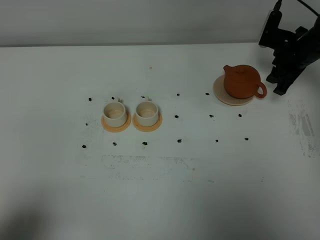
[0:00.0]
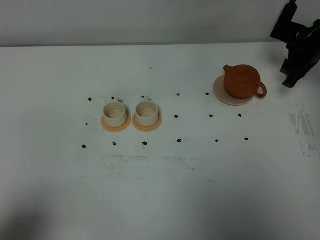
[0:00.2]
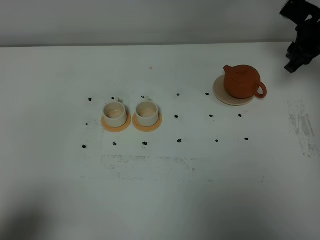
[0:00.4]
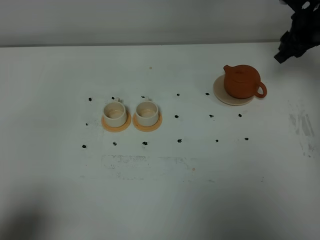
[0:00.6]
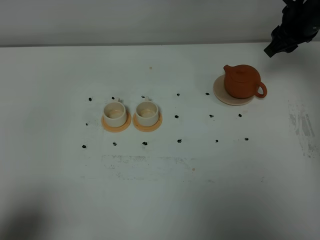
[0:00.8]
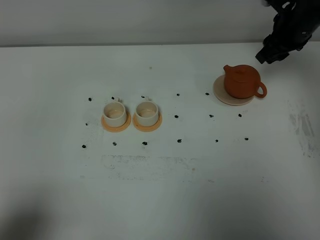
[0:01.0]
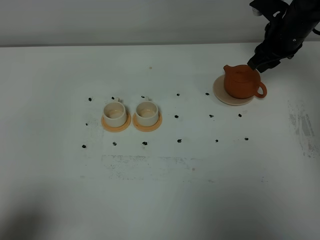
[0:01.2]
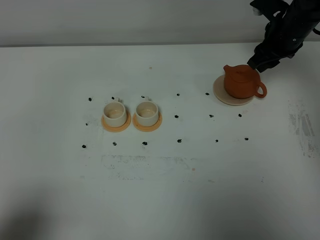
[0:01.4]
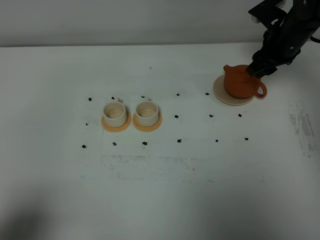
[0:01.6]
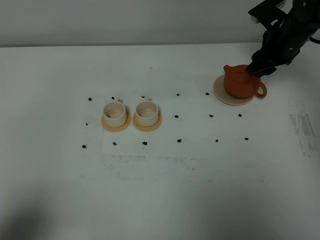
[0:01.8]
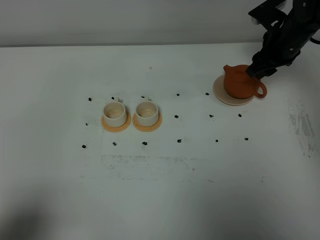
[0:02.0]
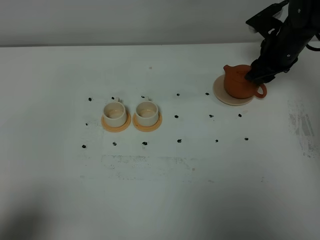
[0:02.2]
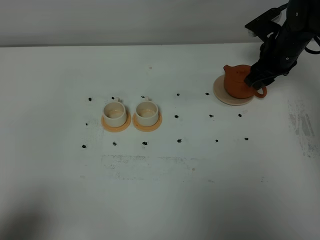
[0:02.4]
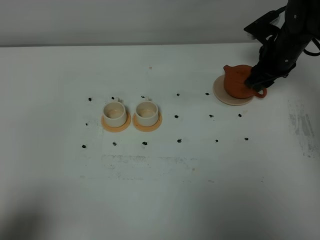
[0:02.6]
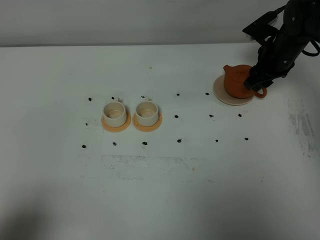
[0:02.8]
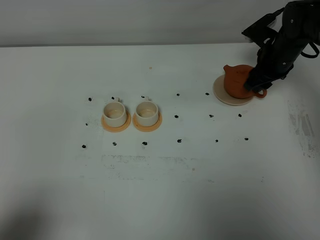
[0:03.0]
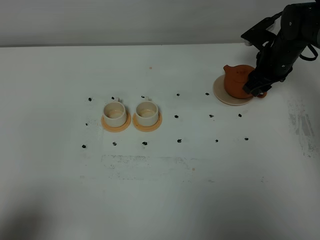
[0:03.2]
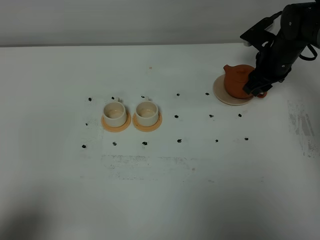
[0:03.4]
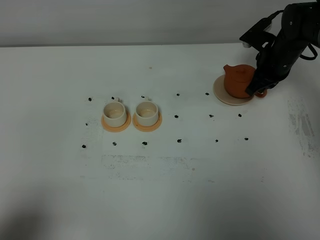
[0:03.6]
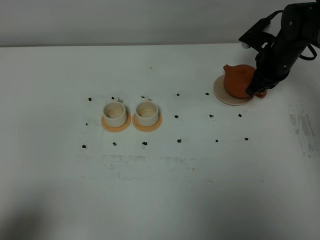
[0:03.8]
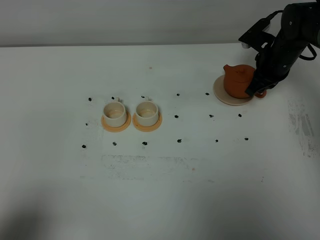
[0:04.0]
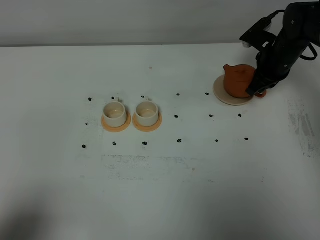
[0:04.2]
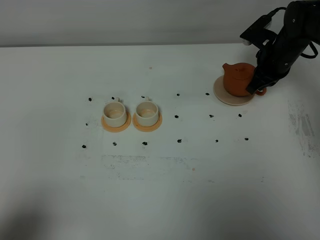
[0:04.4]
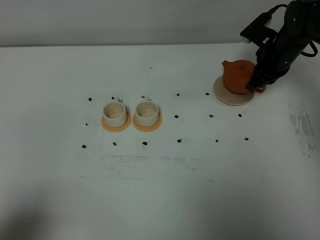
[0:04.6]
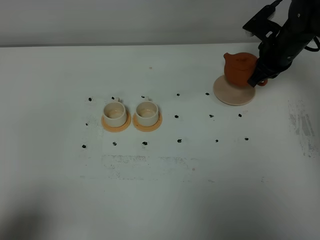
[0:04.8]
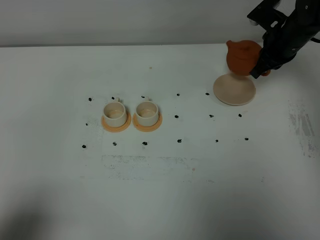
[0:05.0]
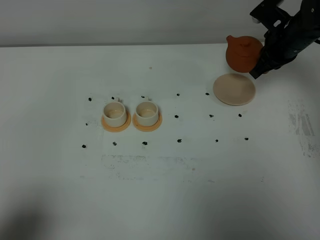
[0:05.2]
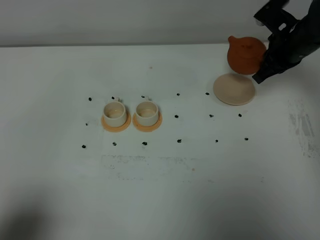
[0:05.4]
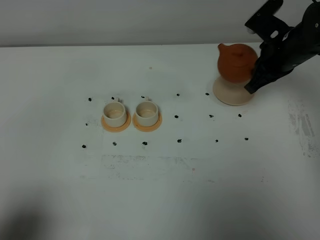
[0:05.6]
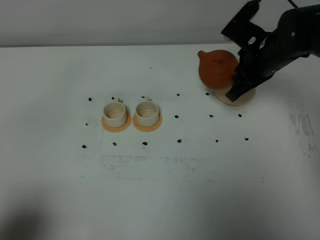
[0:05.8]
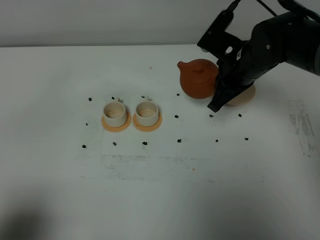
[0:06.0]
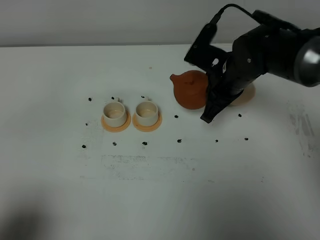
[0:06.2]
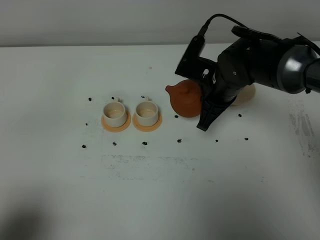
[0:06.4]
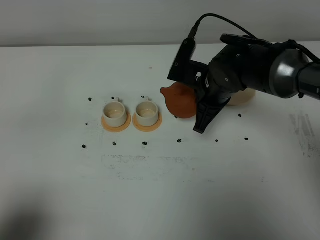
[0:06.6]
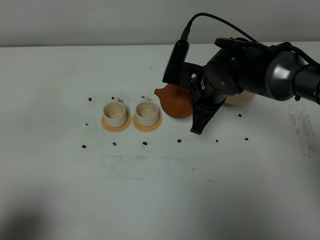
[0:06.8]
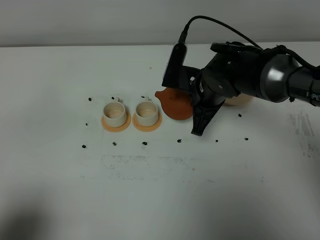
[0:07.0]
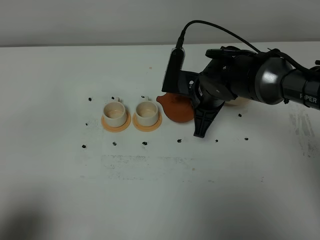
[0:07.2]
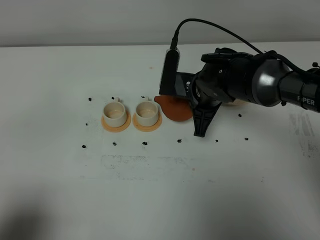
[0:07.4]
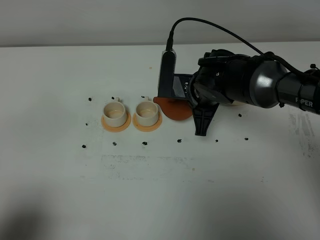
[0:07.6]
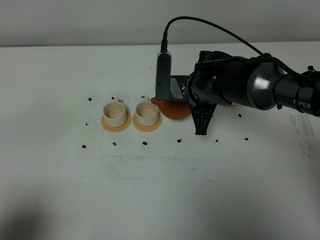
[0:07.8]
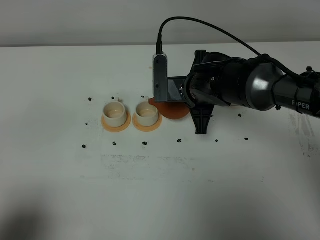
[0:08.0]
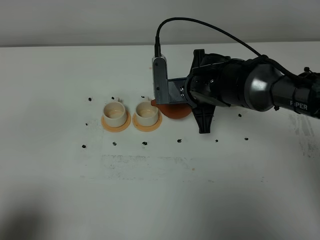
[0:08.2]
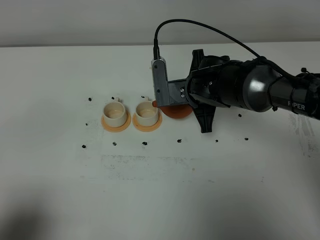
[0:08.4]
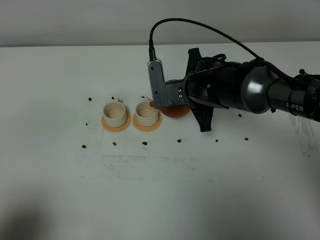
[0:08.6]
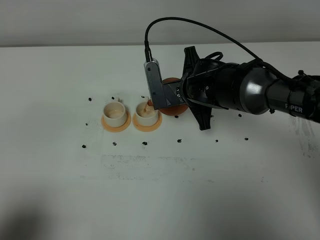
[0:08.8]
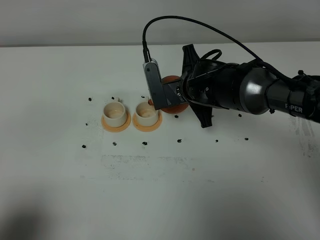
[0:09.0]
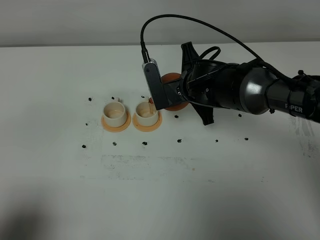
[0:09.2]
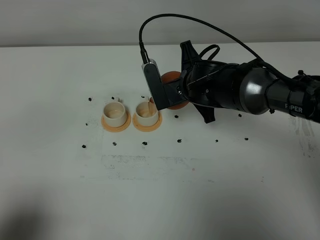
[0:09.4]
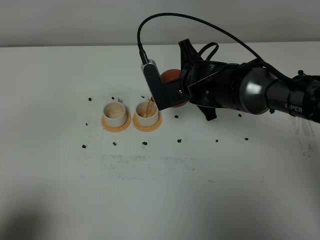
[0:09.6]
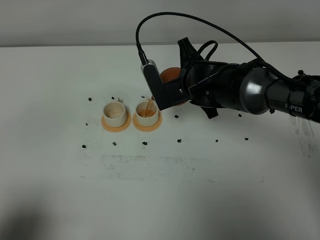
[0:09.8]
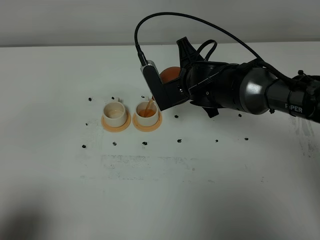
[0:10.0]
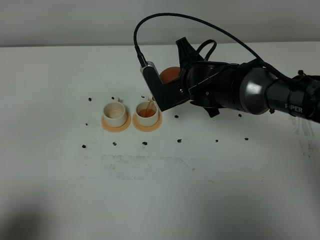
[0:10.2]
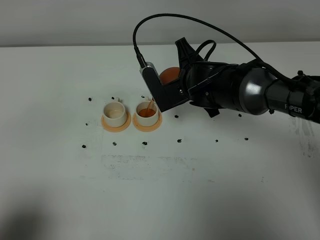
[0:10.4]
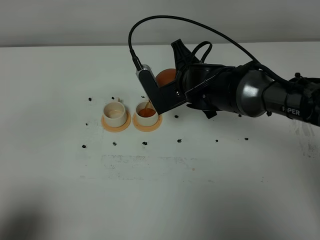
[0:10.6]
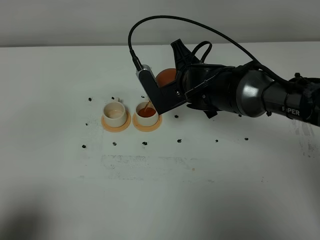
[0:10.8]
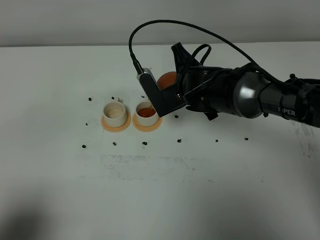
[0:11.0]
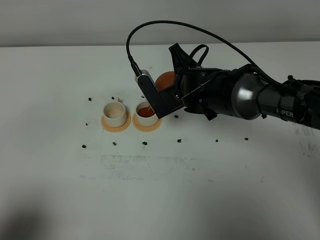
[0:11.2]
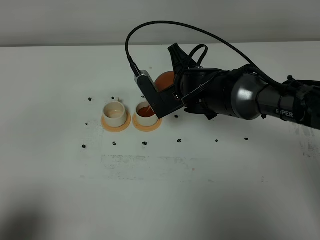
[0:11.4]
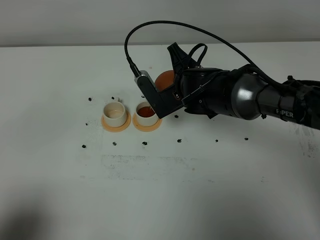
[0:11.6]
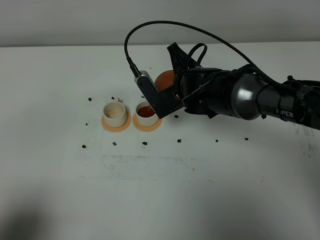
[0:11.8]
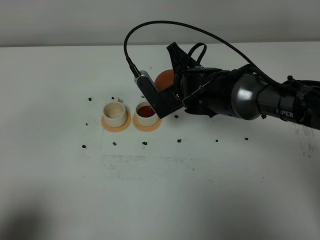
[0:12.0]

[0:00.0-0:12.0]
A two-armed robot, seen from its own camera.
Task of the whole recording: grasp the brown teapot and pour the tea into the two white teacups one by one, put the brown teapot back in its original place.
Step, 0:00.0 to 0:04.6: Pick up the teapot with the right gripper.
0:00.0 to 0:01.6: The right gripper travels to the left and upward by about 5 cm.
0:01.6 to 0:03.0: The grippers move only a little.
0:03.0 to 0:04.4: The right gripper closes up.
0:04.4 to 0:06.0: The right gripper heads backward, to the left and upward, covering about 15 cm.
0:06.0 to 0:07.6: The right gripper is displaced to the left by some 5 cm.
0:09.0 to 0:10.4: The grippers make only small movements.
0:10.4 to 0:12.0: The grippers make only small movements.

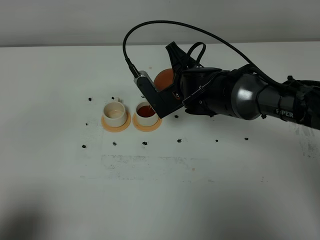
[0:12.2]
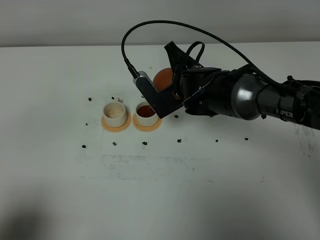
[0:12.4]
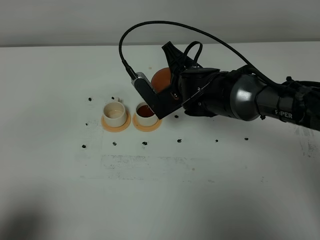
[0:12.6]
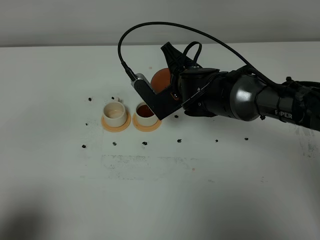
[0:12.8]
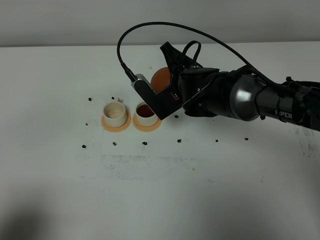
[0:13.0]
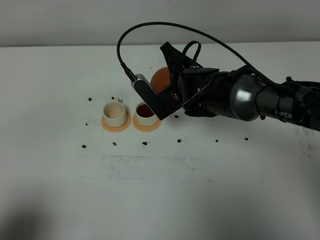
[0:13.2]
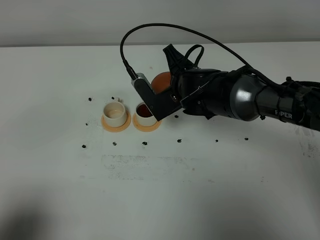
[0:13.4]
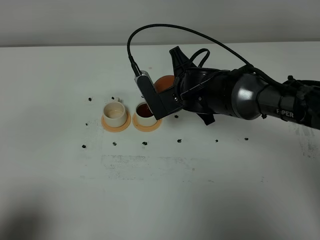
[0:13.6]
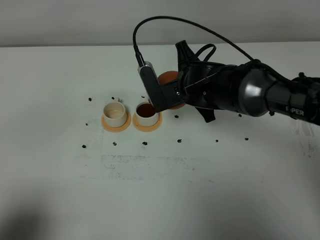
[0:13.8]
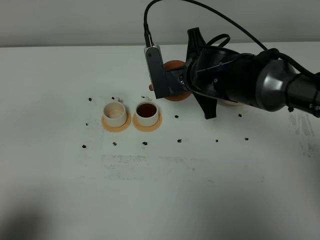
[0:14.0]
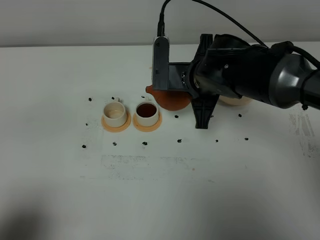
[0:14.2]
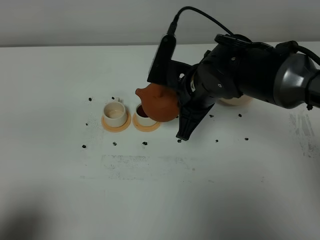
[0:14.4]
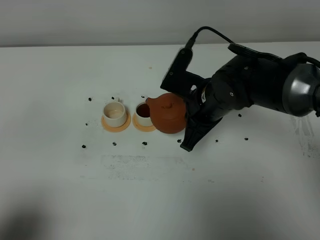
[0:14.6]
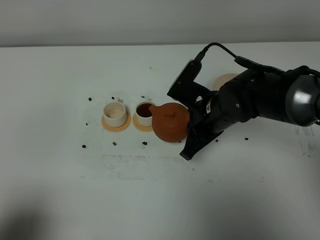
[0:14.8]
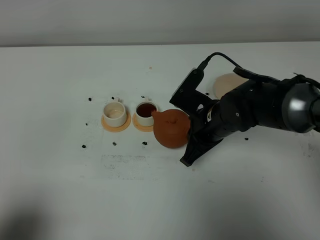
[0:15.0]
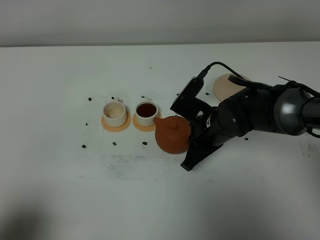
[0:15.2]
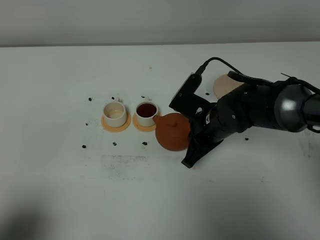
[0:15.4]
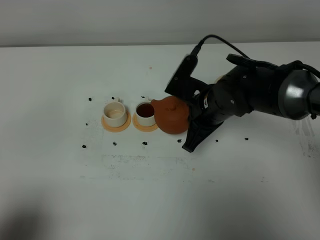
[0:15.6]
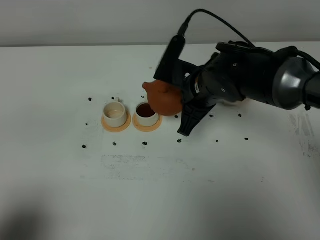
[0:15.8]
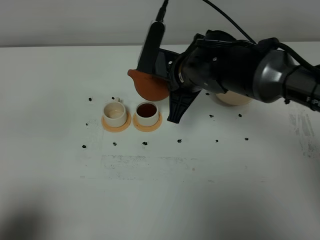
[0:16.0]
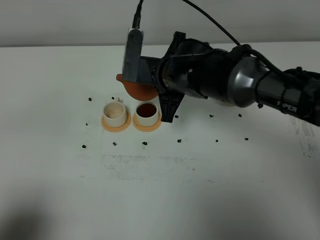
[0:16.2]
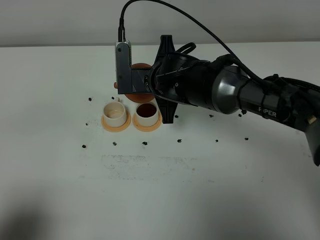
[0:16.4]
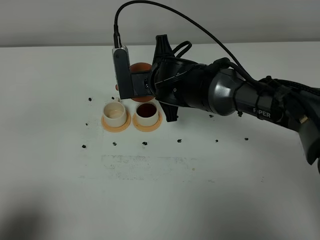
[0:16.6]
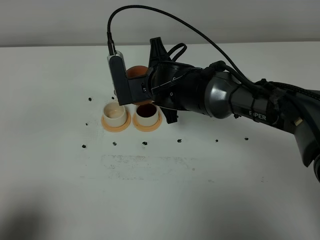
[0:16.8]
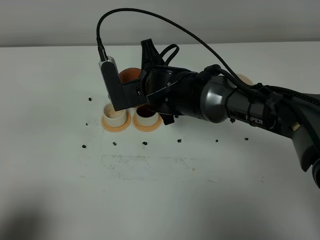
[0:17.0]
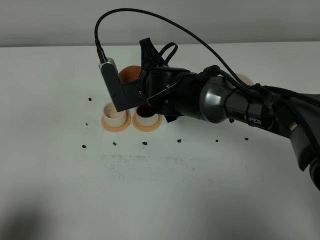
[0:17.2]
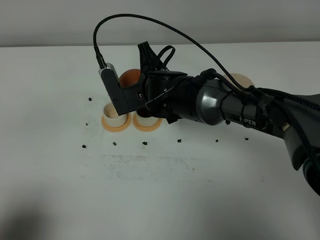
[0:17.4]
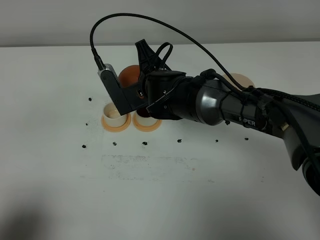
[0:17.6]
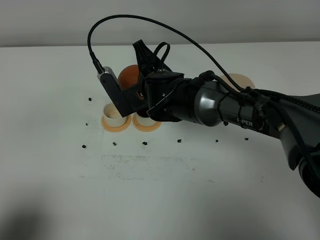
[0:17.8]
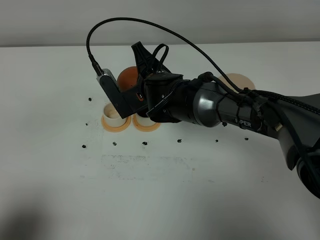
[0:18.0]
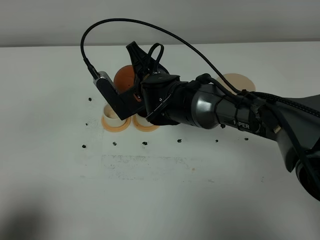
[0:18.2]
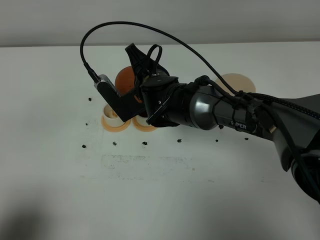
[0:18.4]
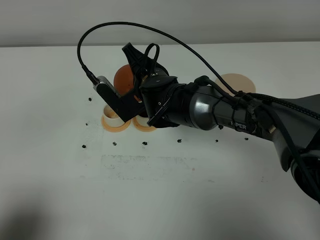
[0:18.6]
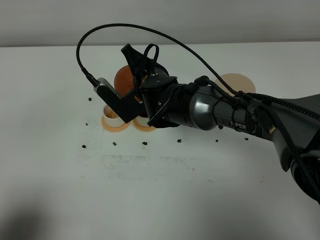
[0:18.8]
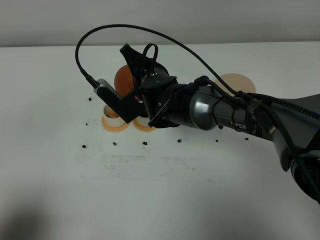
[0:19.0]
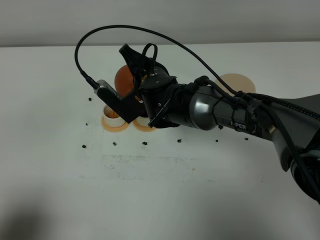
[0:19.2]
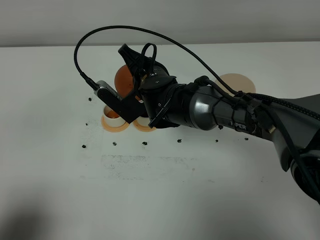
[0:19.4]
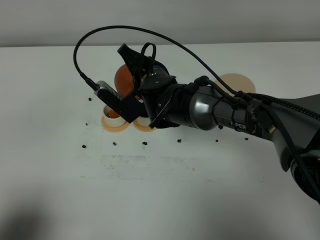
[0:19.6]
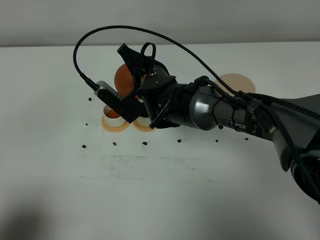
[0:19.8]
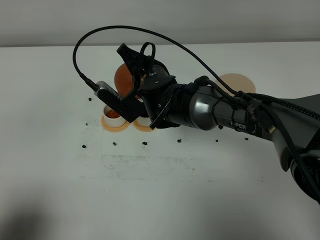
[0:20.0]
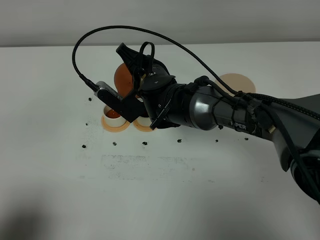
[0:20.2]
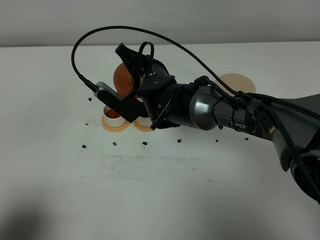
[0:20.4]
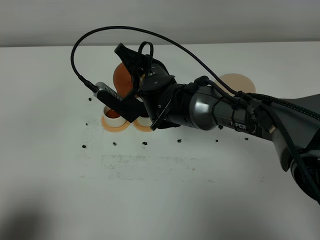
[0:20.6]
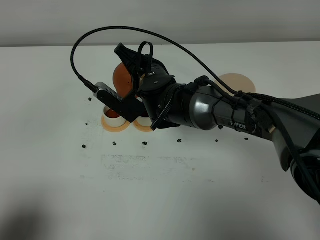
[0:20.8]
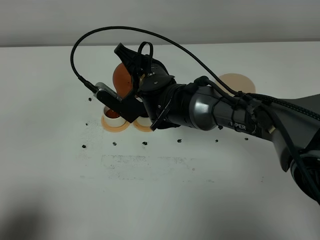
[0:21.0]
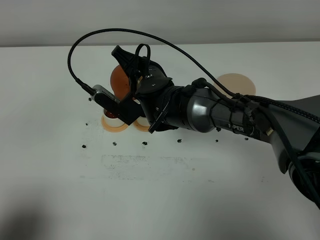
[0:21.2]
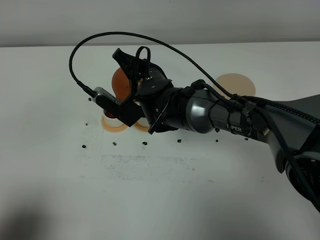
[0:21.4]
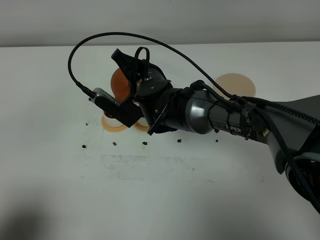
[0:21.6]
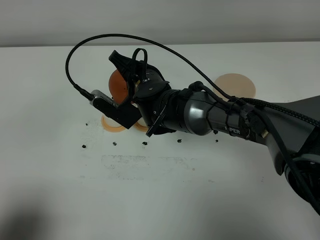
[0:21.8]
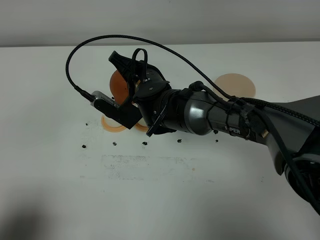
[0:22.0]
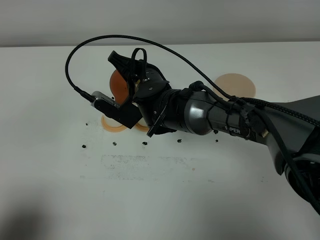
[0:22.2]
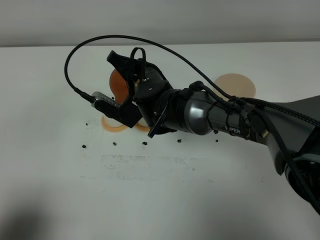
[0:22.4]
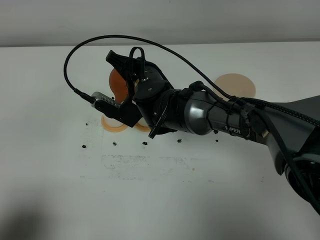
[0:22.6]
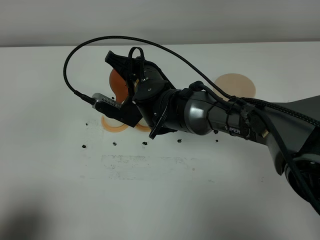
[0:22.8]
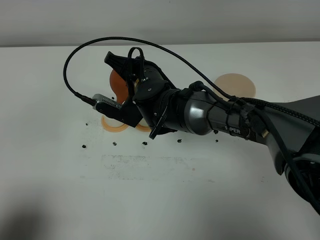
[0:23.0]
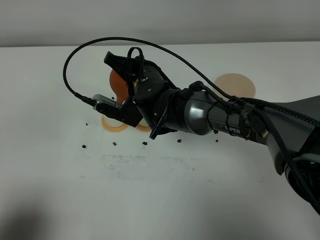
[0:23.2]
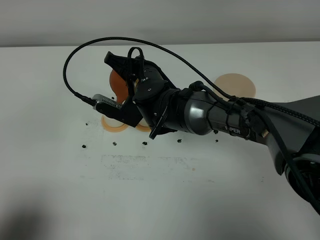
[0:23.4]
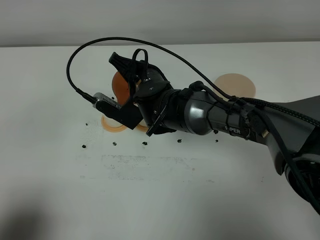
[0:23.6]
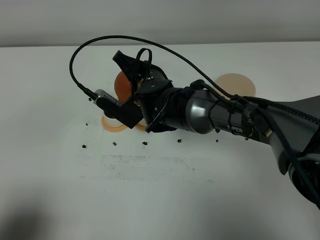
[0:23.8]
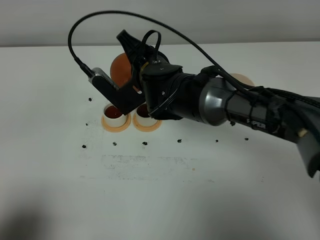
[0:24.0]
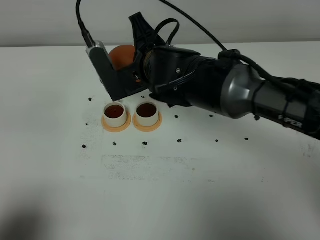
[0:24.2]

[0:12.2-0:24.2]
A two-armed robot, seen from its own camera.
Task of the whole recording: grasp the brown teapot and pour the tea into the two white teacups one by one, put the brown teapot back in its original place.
Step, 0:14.0 to 0:23.6: Pour tea into the teacup with the right gripper.
0:12.2 to 0:13.8: There are only small adjustments of the grippers.
0:13.8 to 0:15.2: The right gripper heads downward and backward, covering some 10 cm.
0:15.2 to 0:16.6: The right gripper travels to the left, upward and forward by approximately 10 cm.
0:18.2 to 0:19.8: There are only small adjustments of the grippers.
0:19.8 to 0:21.2: Neither gripper changes place.
0:21.2 to 0:22.6: The grippers stay close to where they were, moving slightly.
0:22.6 to 0:24.2: The right gripper shifts about 10 cm upward.
